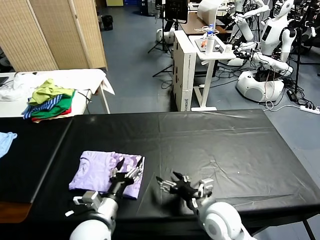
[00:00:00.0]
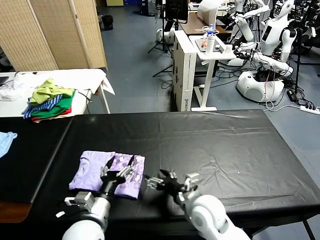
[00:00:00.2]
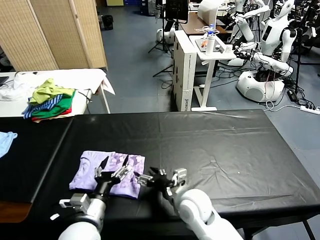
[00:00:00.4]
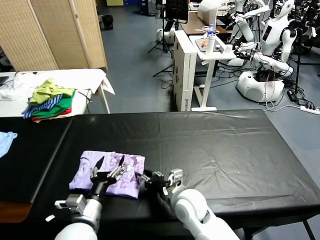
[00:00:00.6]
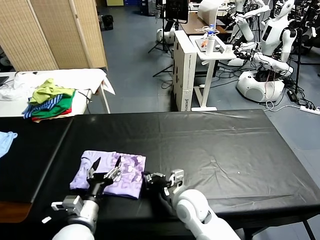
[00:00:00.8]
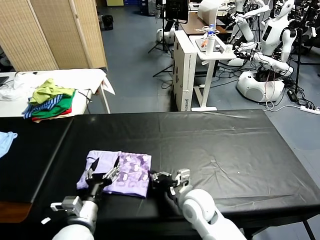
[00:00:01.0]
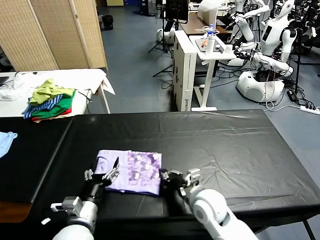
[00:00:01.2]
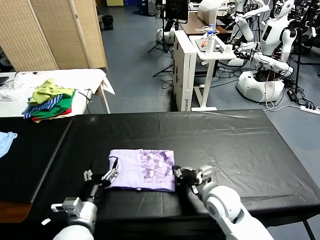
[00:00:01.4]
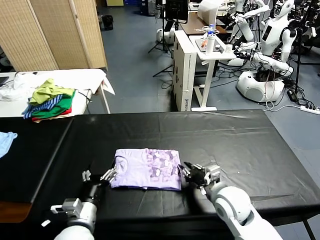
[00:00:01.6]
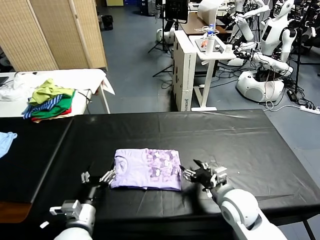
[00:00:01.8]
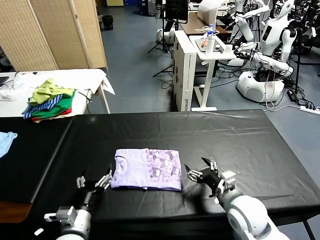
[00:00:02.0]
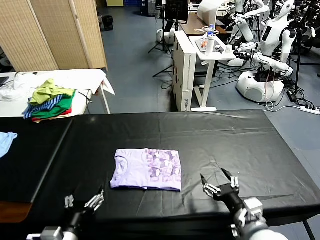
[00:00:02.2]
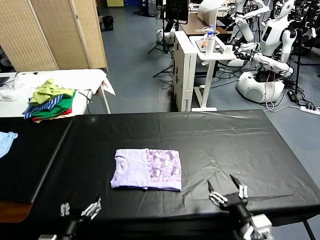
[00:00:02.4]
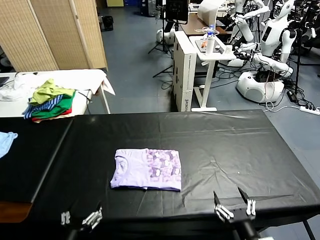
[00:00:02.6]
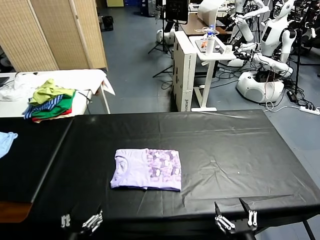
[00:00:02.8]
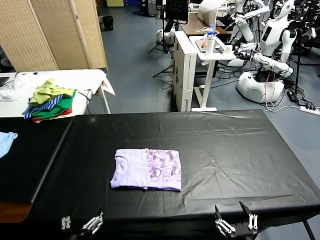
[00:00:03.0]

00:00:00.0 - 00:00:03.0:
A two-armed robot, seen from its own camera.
Task of the whole recording: fold and organize the clothes.
Step, 00:00:00.0 - 00:00:01.6: Drag the clothes to the center of the table.
00:00:00.0 - 00:00:01.6: The right gripper moves to the right, roughly 10 cm, and closes, then opens again.
00:00:01.6 - 00:00:03.0: The right gripper heads backward, covering roughly 20 cm, while the left gripper travels backward by approximately 10 cm.
